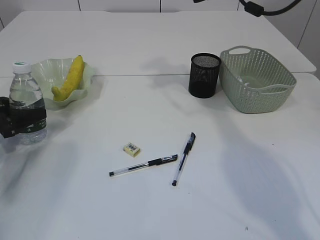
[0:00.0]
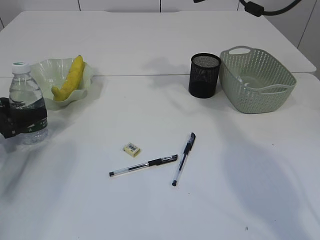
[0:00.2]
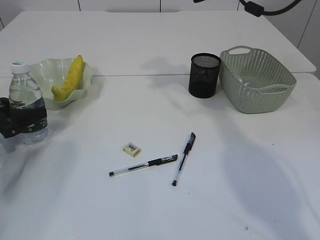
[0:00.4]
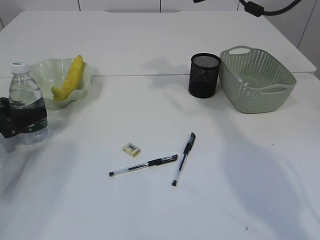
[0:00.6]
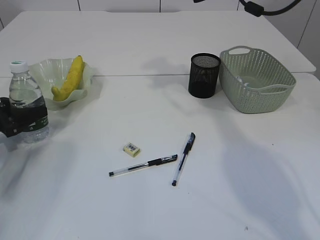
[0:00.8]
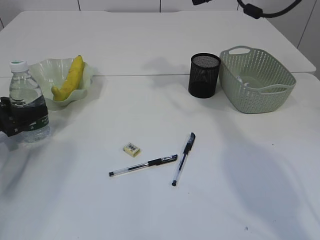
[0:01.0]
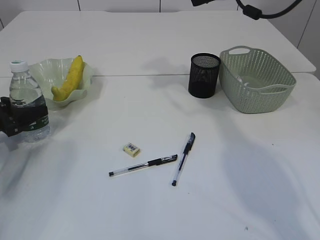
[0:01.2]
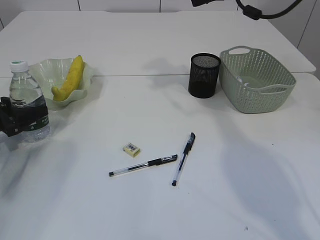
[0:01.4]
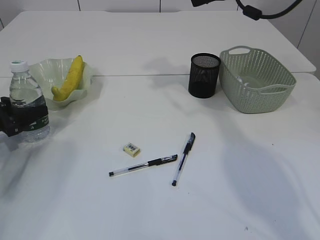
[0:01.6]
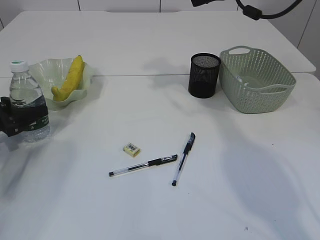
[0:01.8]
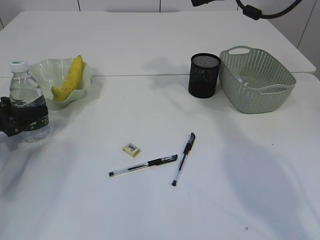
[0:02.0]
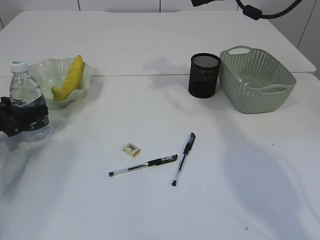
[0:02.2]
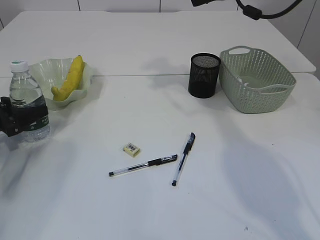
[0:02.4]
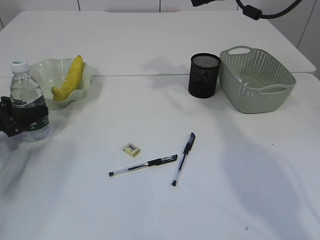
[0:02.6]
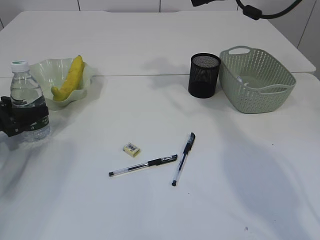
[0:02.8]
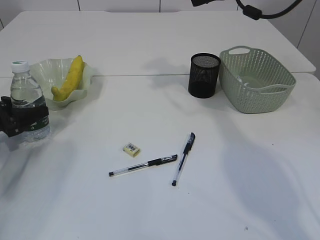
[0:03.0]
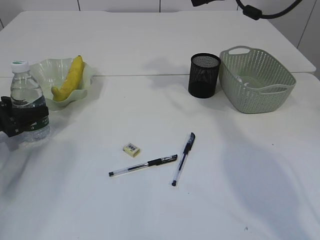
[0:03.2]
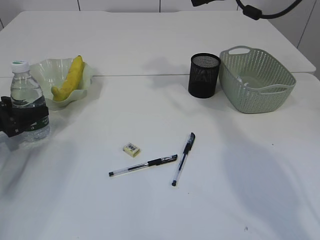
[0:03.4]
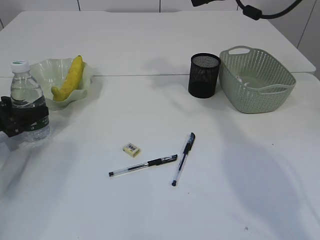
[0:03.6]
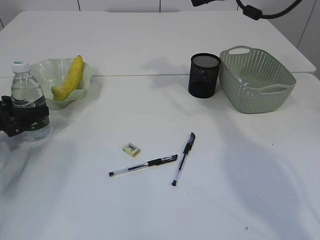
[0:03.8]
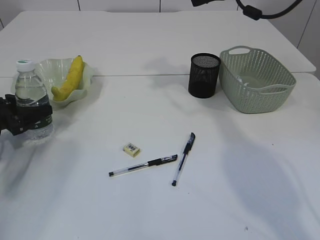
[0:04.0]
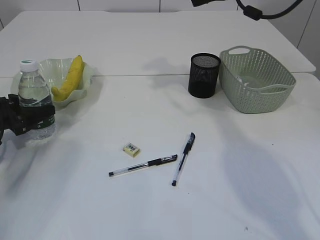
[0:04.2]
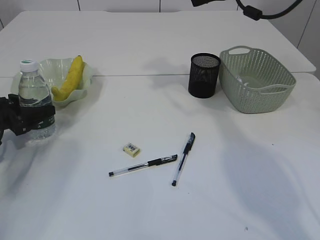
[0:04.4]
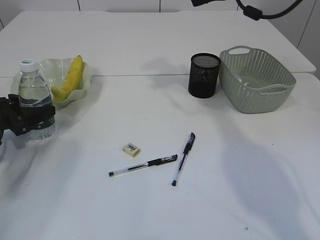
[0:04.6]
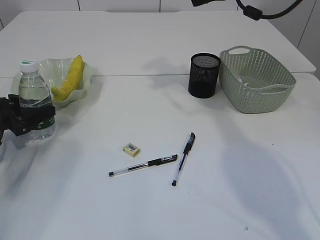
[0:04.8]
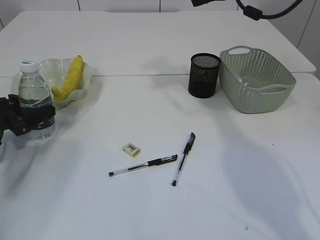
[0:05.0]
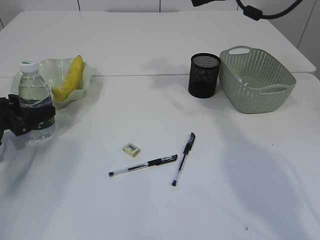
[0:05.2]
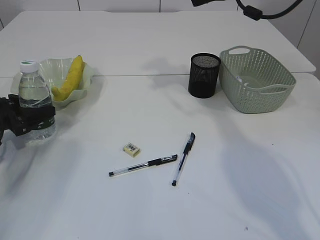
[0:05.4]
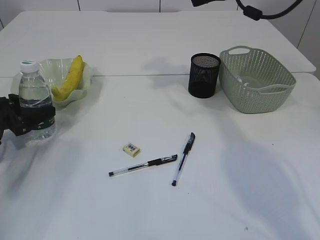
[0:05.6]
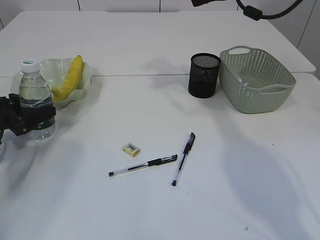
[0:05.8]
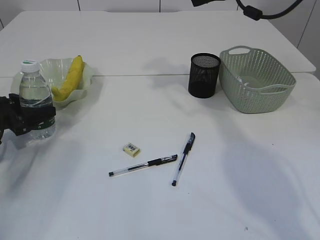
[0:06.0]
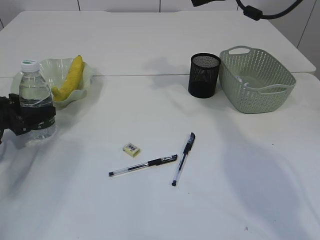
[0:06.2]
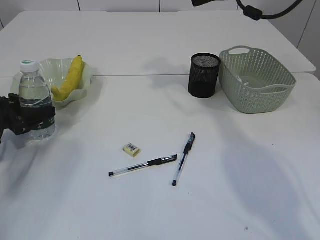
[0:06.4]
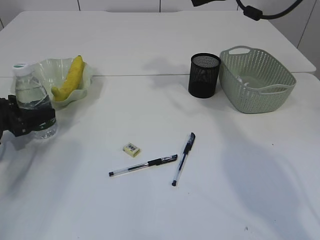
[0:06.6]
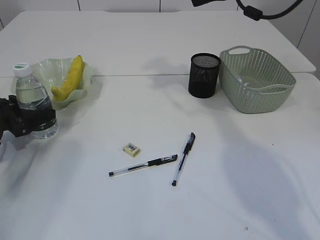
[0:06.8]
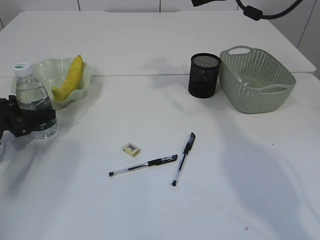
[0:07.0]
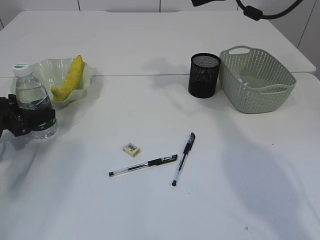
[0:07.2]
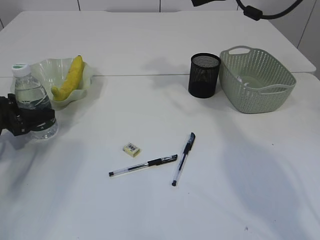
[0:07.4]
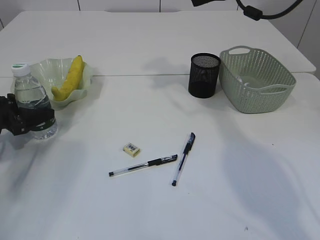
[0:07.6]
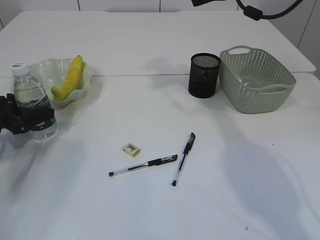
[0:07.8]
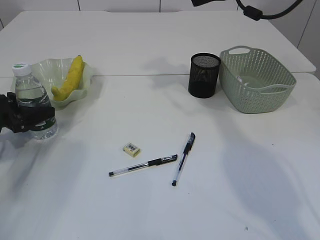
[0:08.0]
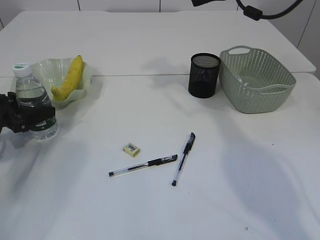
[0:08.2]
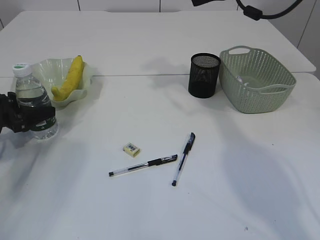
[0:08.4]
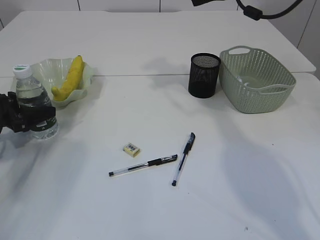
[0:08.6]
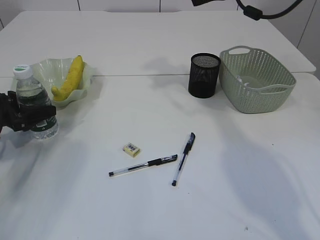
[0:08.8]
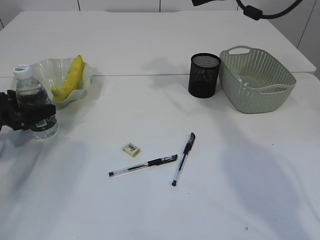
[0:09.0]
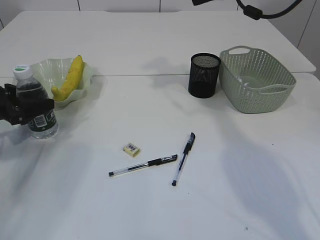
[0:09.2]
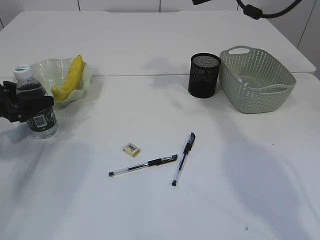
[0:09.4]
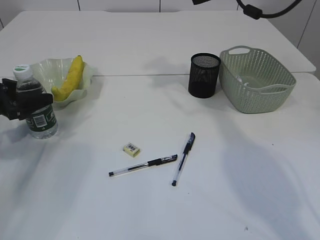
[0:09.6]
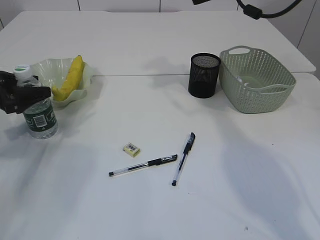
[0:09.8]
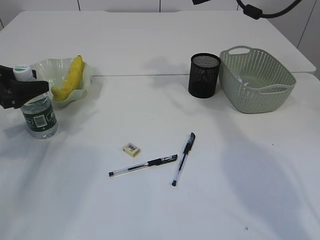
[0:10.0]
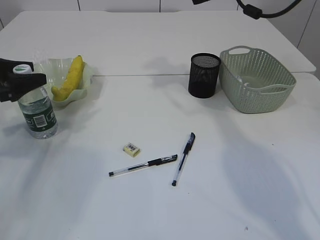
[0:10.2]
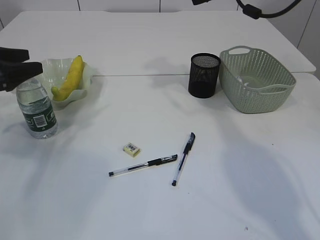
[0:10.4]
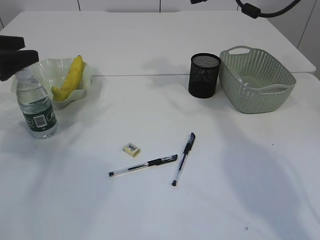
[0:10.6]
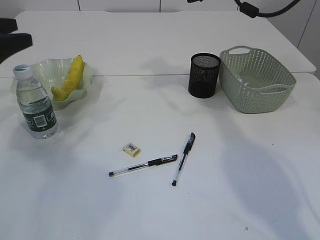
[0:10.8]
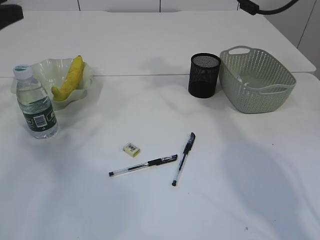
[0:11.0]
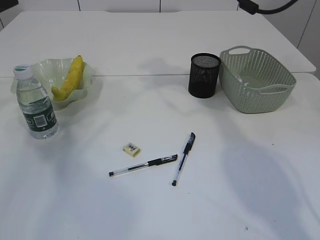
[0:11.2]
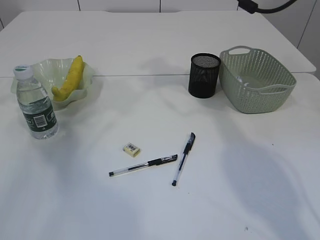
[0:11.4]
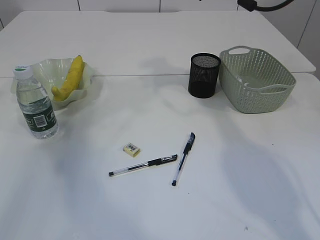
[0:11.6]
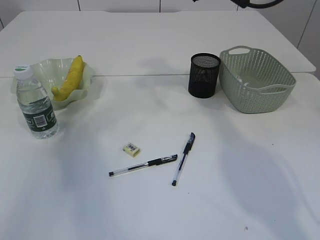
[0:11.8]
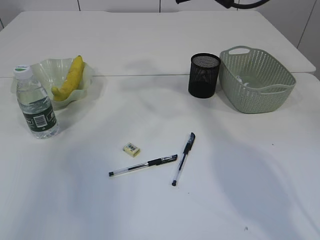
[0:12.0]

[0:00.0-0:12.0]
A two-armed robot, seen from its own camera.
Step, 0:00.0 to 0:10.6: Place the bottle.
0:00.0 to 0:03.0: The two grippers keep their place.
0:03.0 to 0:04.4: There are only small adjustments of the grippers.
0:04.4 to 0:07.6: Both grippers stay put.
0:07.6 to 0:09.0: Both grippers stay put.
0:09.0 to 0:10.4: The left gripper moves upward, about 10 cm.
0:10.4 to 0:12.0: The left gripper heads upward and backward, covering roughly 30 cm.

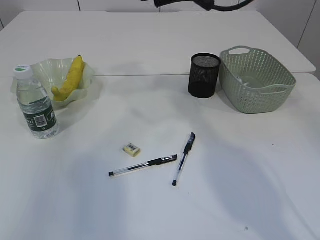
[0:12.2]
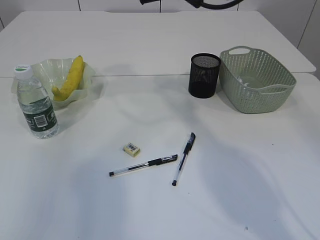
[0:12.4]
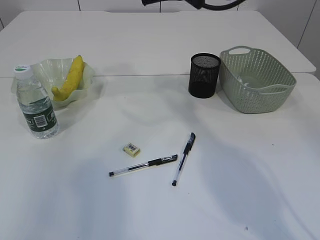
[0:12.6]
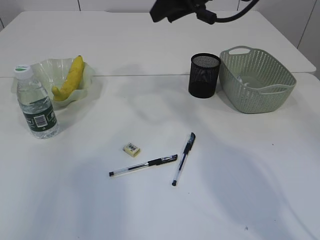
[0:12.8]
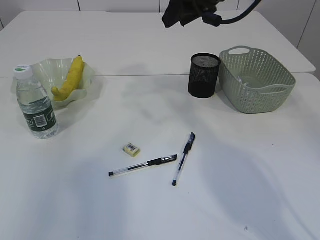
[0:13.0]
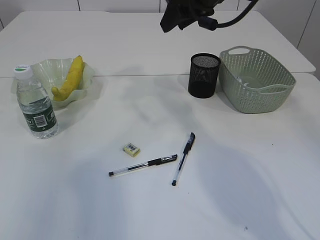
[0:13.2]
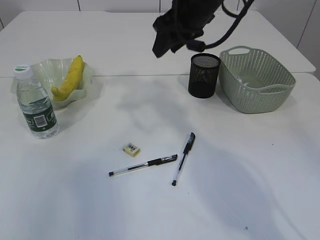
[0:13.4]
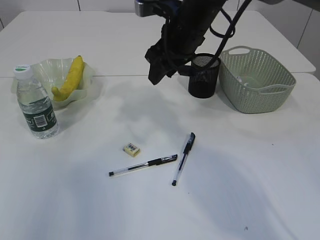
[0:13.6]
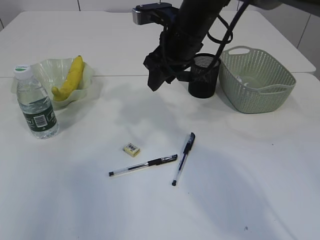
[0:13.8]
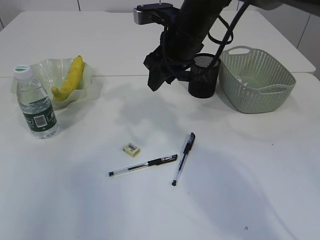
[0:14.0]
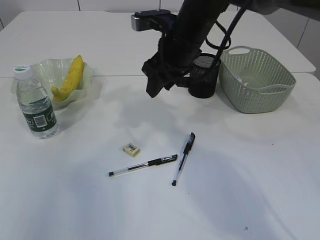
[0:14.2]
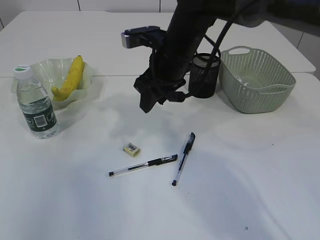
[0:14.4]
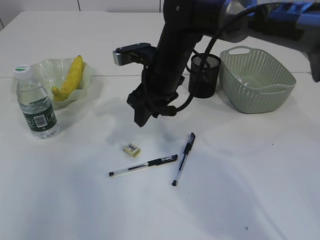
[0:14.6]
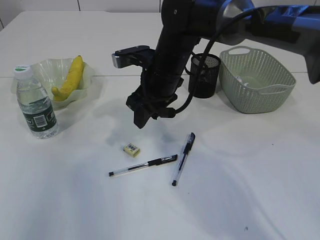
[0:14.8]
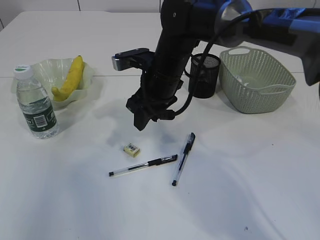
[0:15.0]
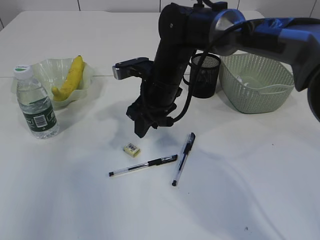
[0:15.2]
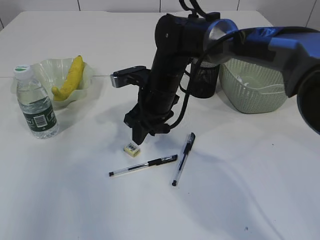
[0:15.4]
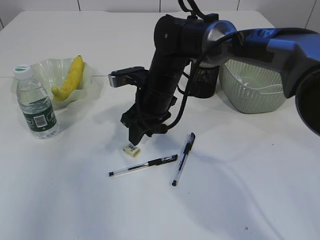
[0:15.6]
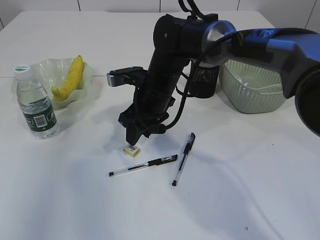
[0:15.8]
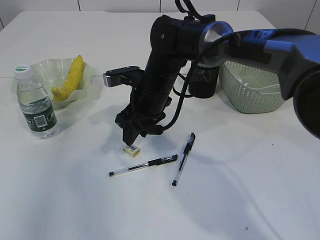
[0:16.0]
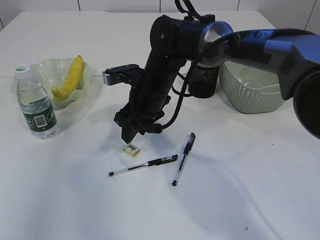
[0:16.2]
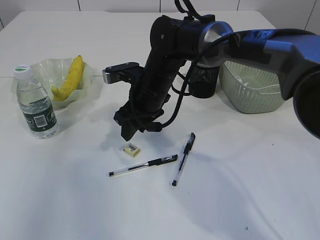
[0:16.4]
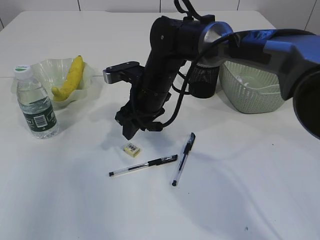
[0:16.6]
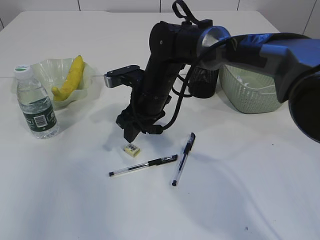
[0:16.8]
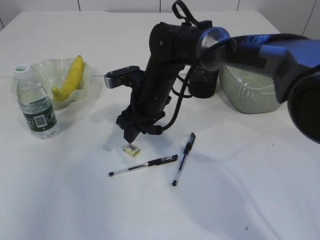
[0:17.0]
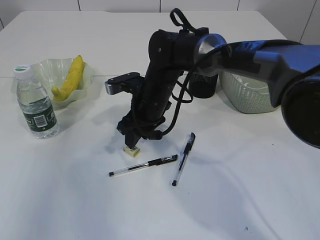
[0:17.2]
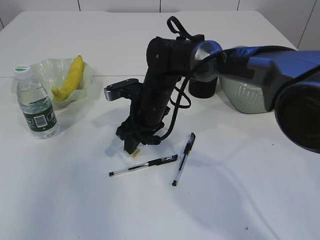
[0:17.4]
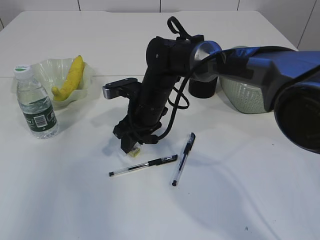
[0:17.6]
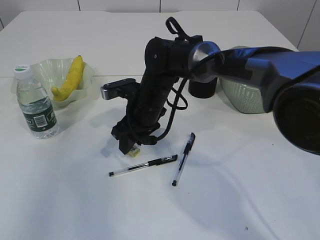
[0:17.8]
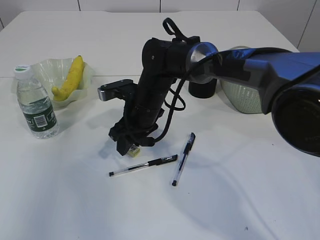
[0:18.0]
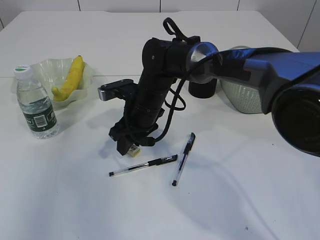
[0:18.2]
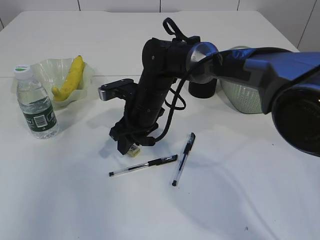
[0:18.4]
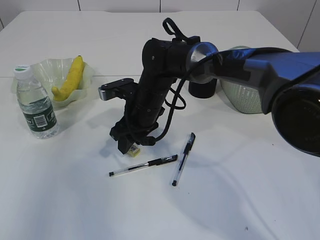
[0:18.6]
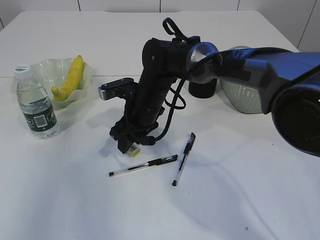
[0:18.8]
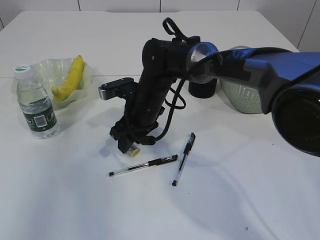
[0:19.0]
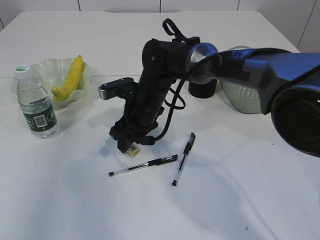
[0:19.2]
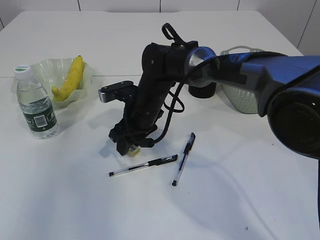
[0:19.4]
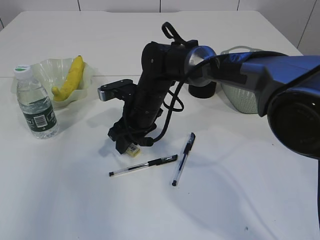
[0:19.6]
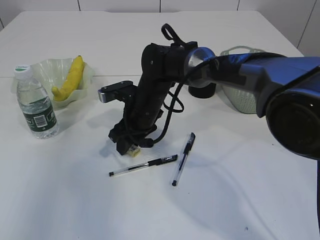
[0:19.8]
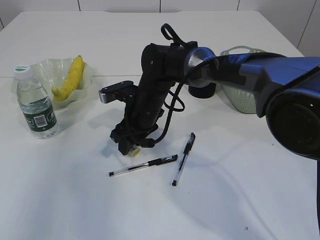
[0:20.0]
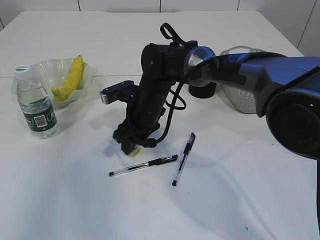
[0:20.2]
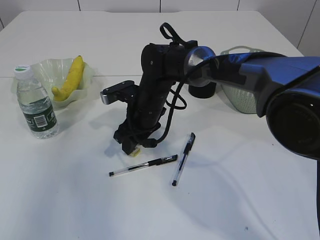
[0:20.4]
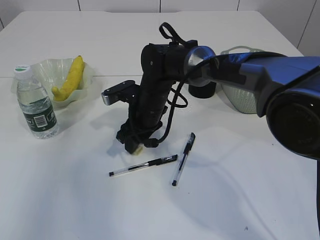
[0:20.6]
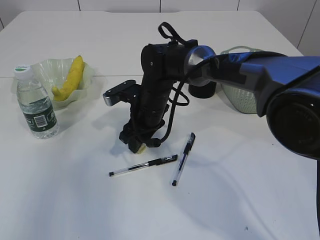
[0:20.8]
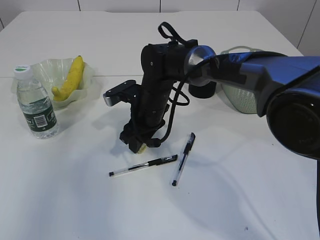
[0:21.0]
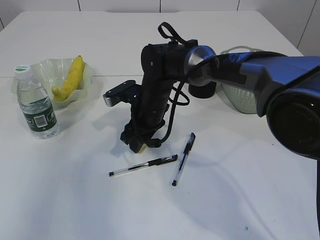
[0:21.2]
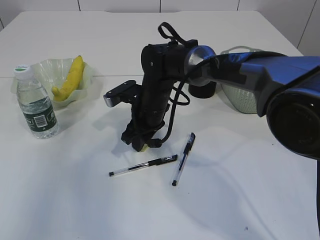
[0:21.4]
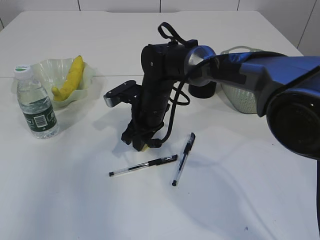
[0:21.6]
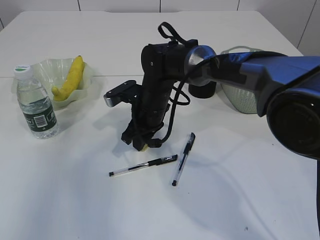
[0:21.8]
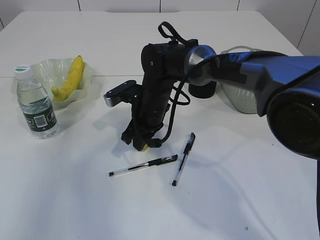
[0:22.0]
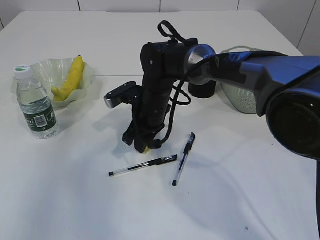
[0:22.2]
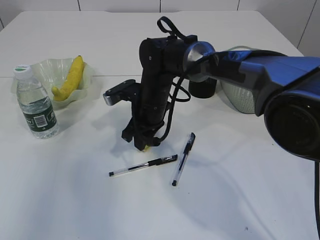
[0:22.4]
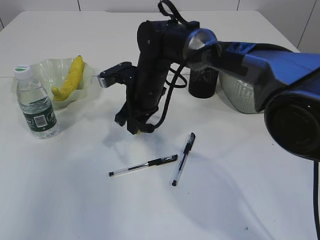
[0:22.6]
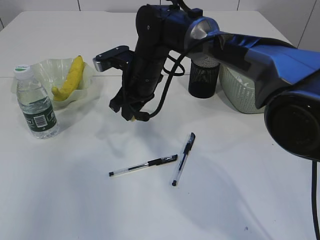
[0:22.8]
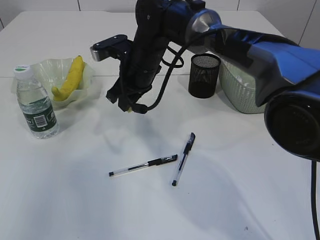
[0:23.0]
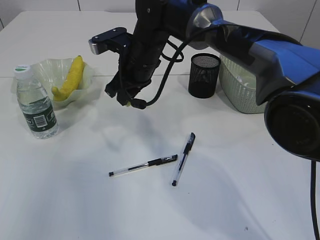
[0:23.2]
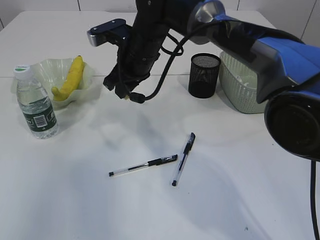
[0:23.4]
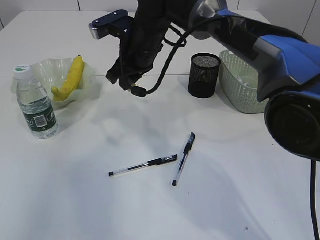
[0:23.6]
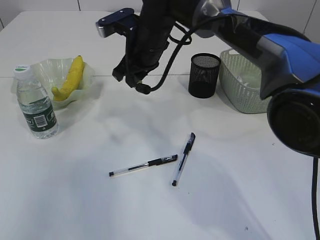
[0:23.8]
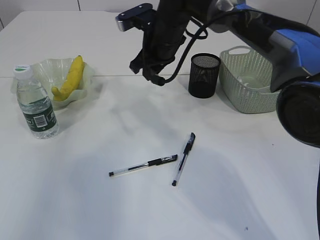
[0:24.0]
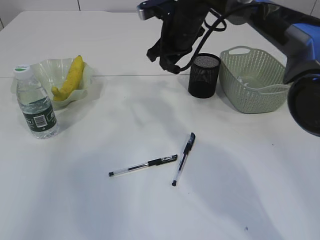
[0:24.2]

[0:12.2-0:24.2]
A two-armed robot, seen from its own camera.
Step, 0:12.2 to 0:22.6: Pick up the eraser.
0:12.2 to 0:13.8: The right gripper is displaced downward by roughly 10 cm.
0:13.8 to 0:15.2: The right gripper moves downward, approximately 10 cm.
0:15.2 to 0:18.2: The grippers make only small movements.
0:18.2 to 0:19.8: Neither gripper changes place.
0:19.8 to 0:21.2: The grippers move only a little.
0:21.2 to 0:22.6: The right gripper closes.
0:22.6 to 0:24.2: The right gripper goes roughly 15 cm upward, to the right and forward.
